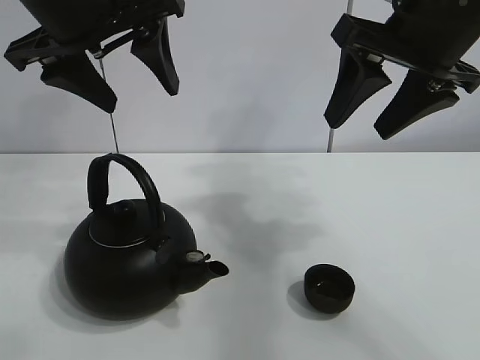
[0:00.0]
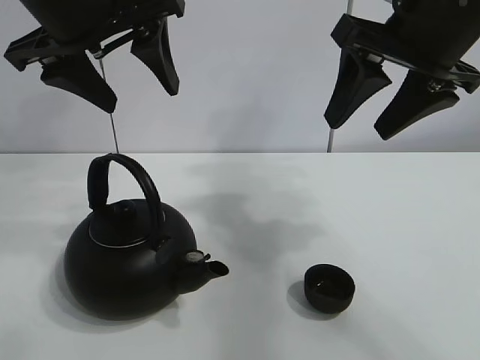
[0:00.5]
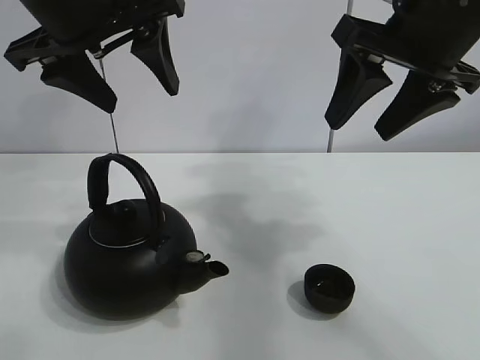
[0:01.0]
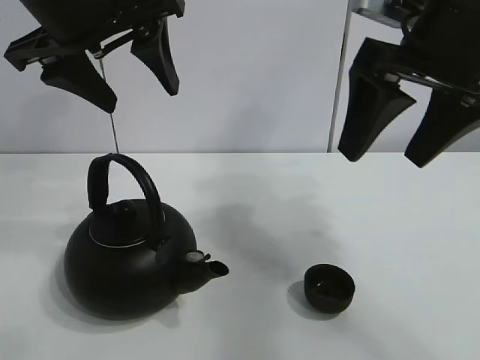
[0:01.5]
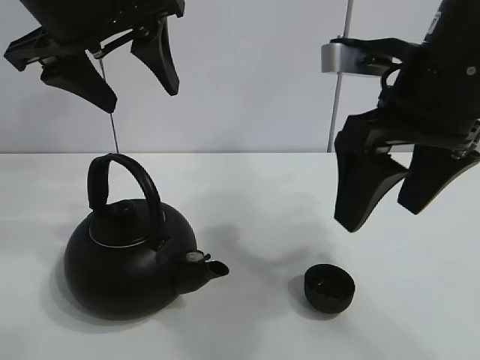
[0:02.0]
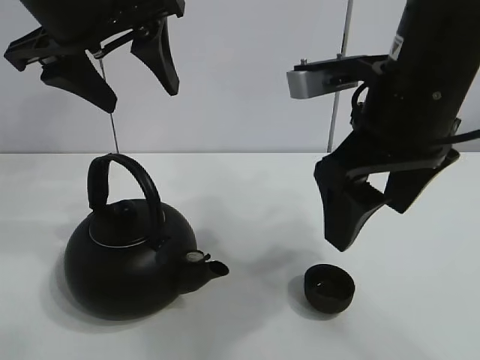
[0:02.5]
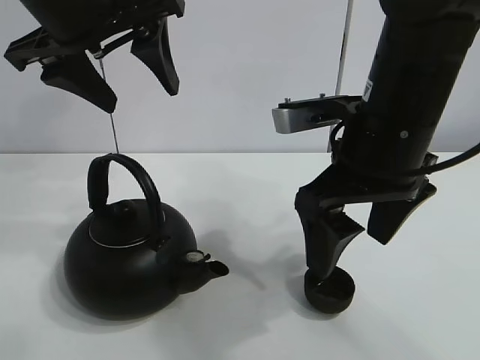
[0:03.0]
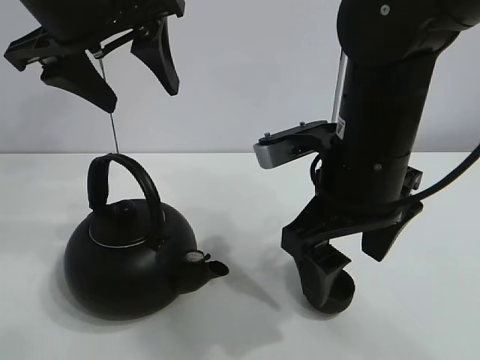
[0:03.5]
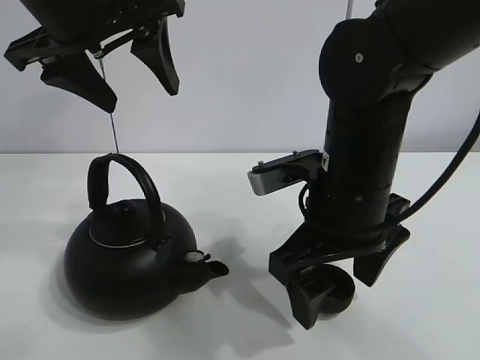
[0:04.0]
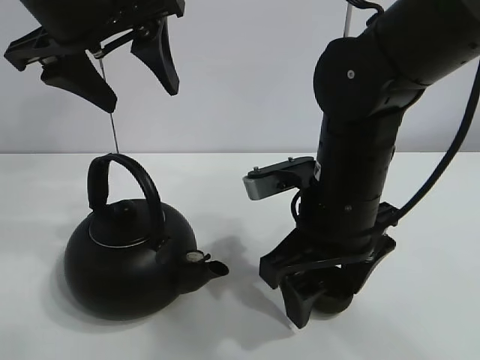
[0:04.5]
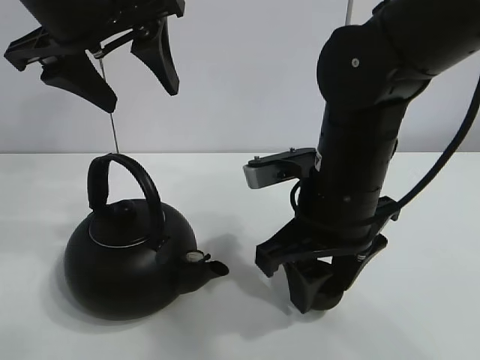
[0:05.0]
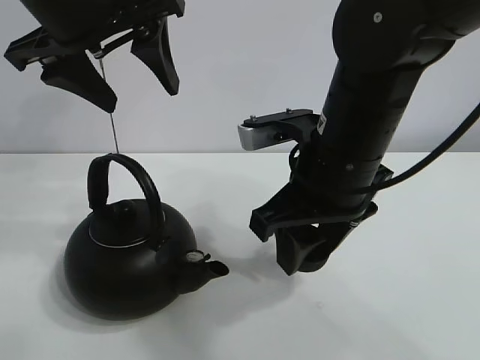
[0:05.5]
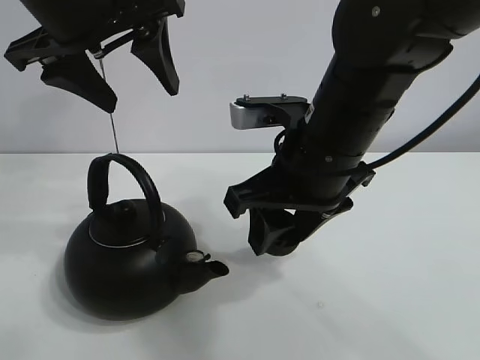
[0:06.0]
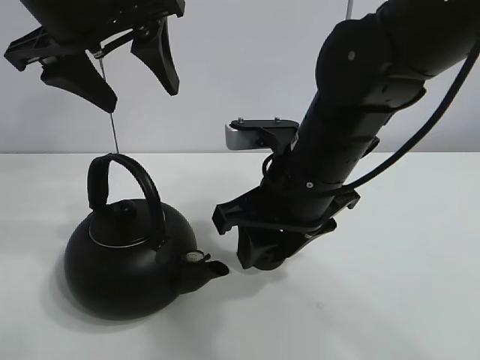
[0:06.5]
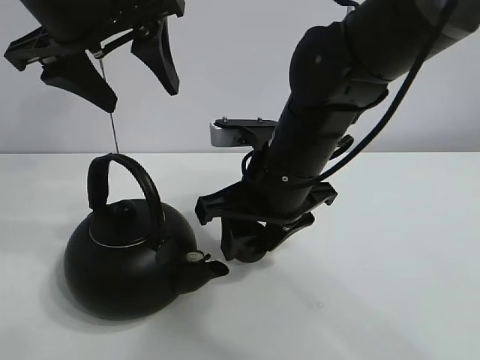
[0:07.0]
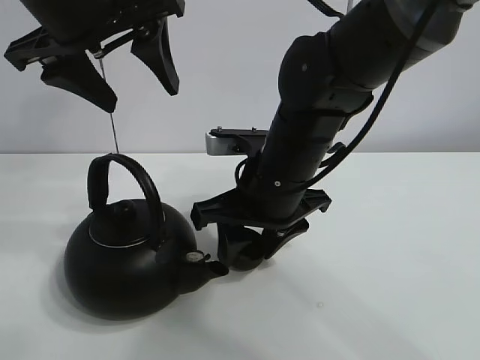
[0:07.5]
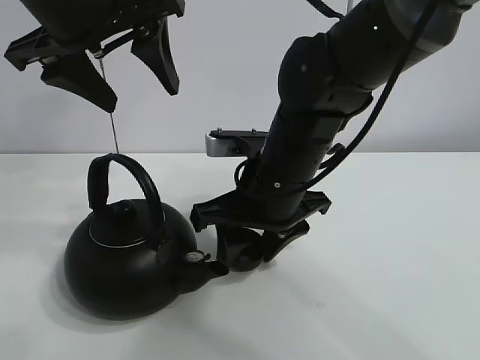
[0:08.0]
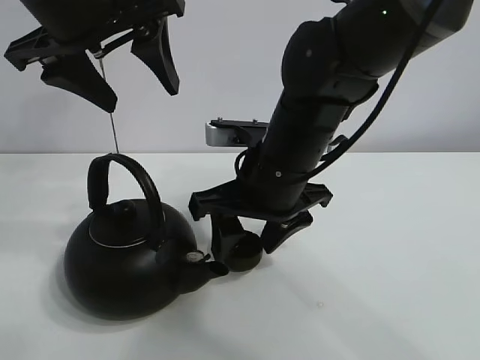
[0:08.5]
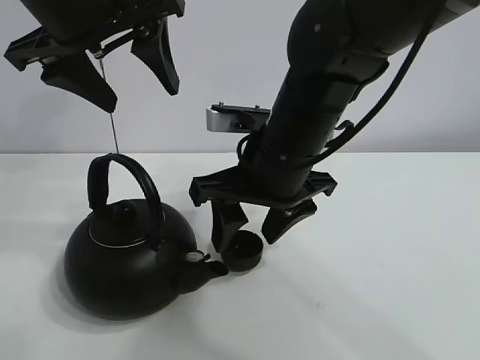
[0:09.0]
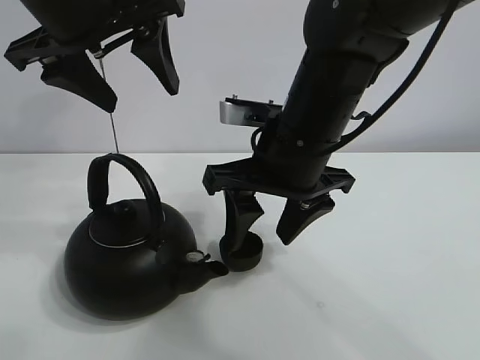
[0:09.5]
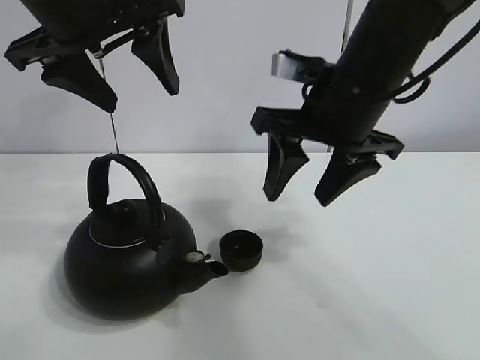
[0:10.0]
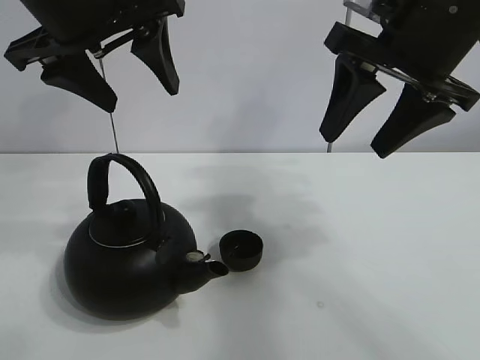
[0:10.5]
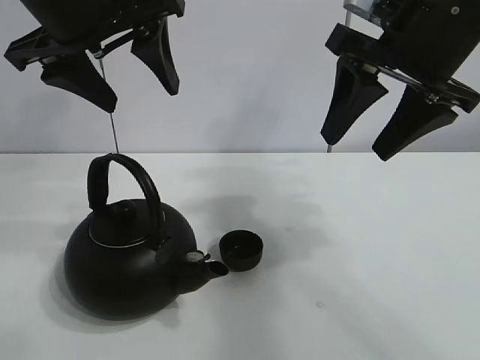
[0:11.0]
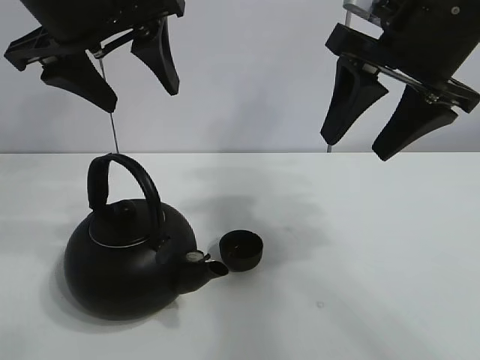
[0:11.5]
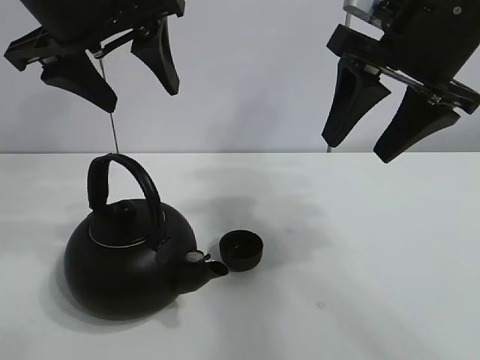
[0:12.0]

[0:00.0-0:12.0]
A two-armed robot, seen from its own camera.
Task of the whole recording: pour tea into the teacup.
Step, 0:00.0 to 0:04.5: Pick up the teacup with the right gripper.
Step, 0:05.0 to 0:08.0: Place the teacup in the center of view with the right gripper.
0:02.0 to 0:04.0: The right gripper moves downward and to the left, roughly 10 cm.
0:04.0 to 0:06.0: The right gripper closes.
0:06.0 to 0:08.0: The right gripper ends up roughly 5 cm from where it was.
0:08.0 to 0:10.0: The right gripper travels upward and to the right by about 10 cm.
0:10.0 to 0:12.0: The right gripper is displaced upward and to the right by approximately 10 cm.

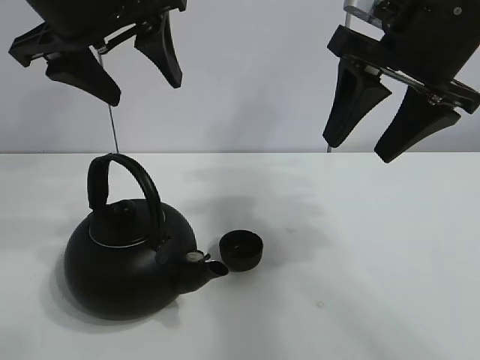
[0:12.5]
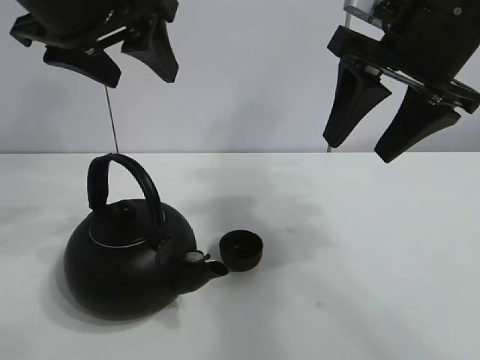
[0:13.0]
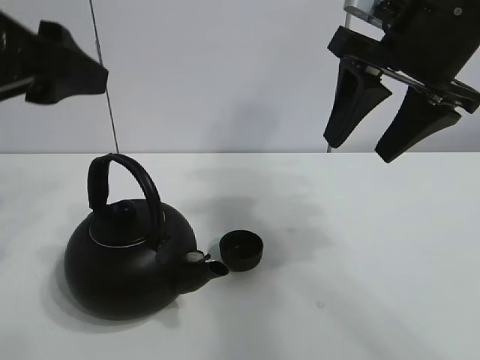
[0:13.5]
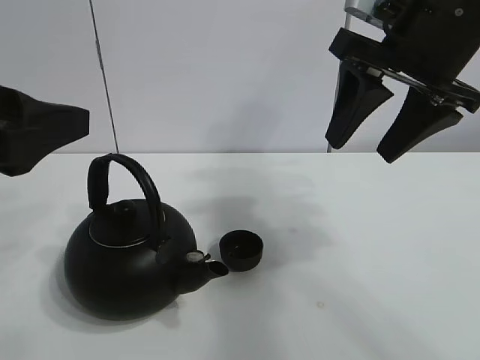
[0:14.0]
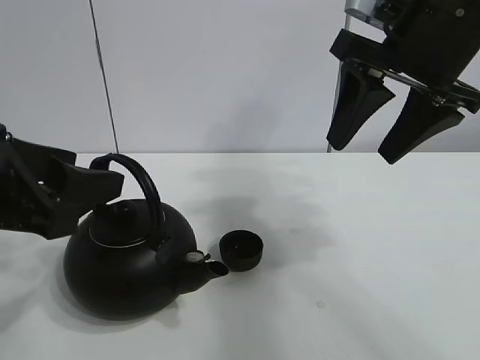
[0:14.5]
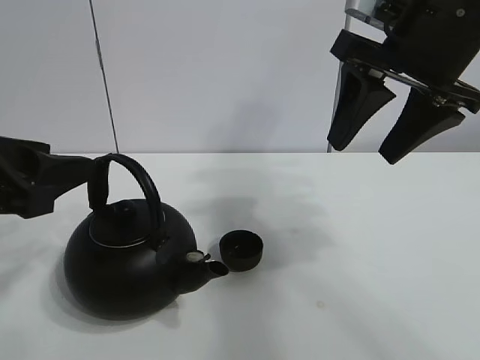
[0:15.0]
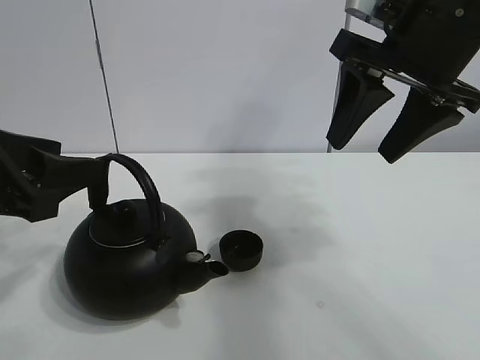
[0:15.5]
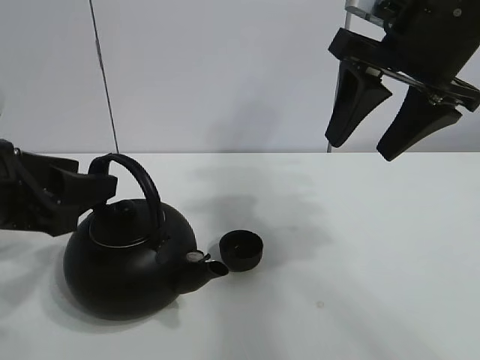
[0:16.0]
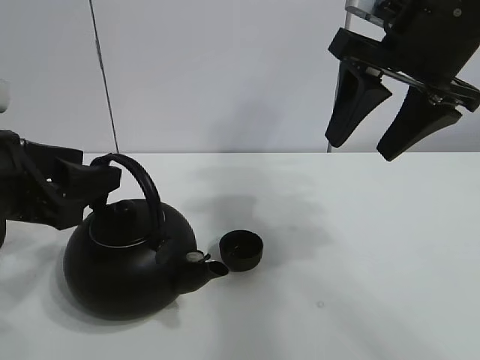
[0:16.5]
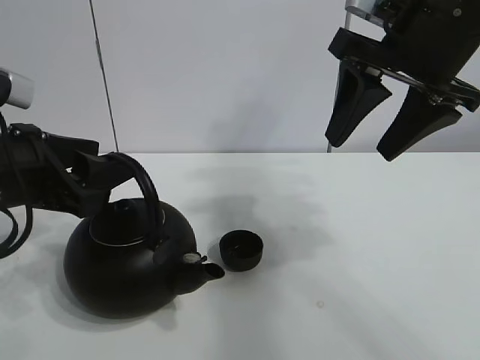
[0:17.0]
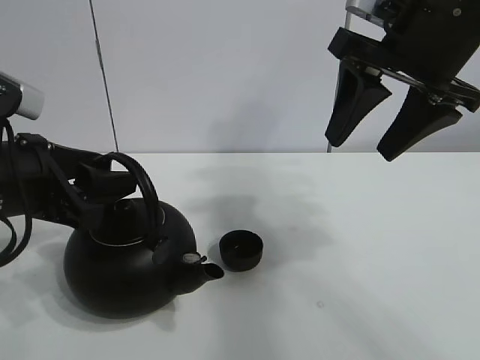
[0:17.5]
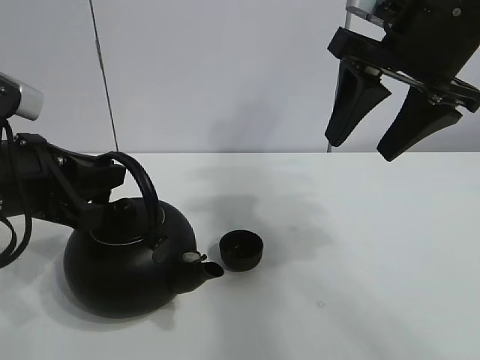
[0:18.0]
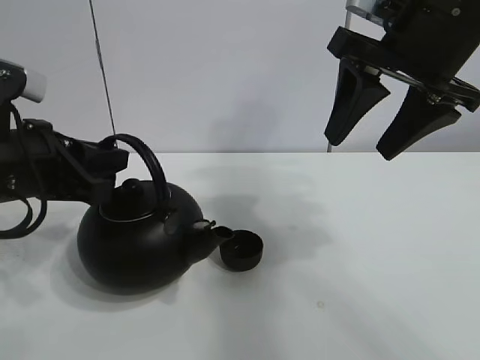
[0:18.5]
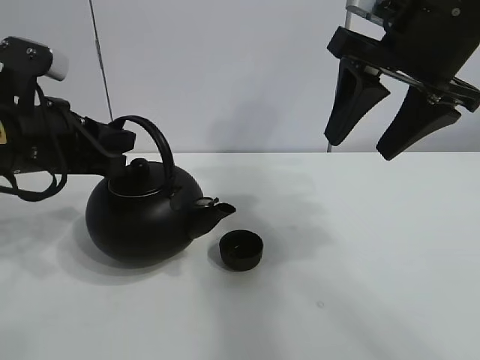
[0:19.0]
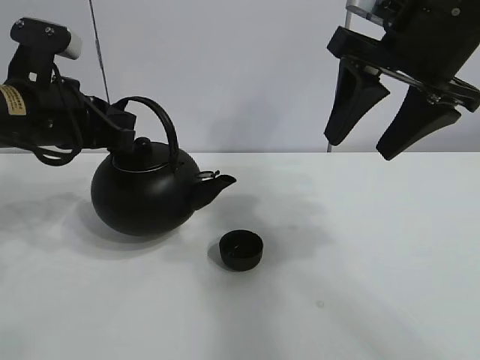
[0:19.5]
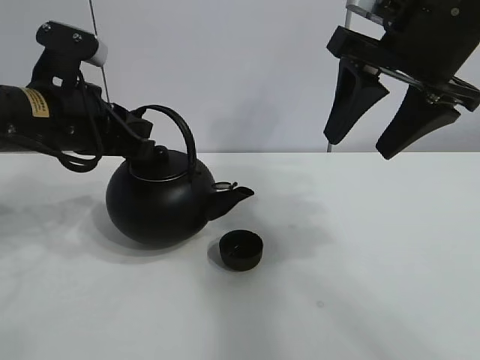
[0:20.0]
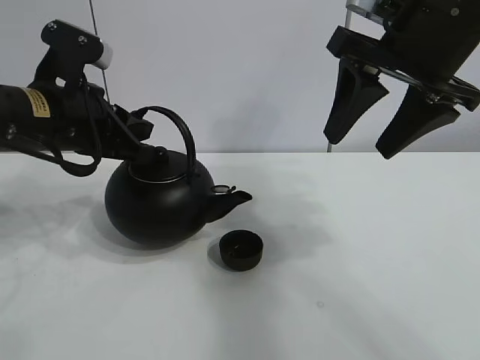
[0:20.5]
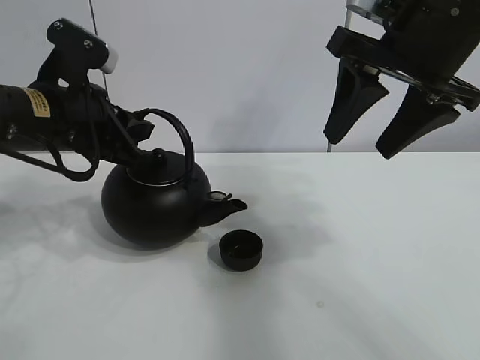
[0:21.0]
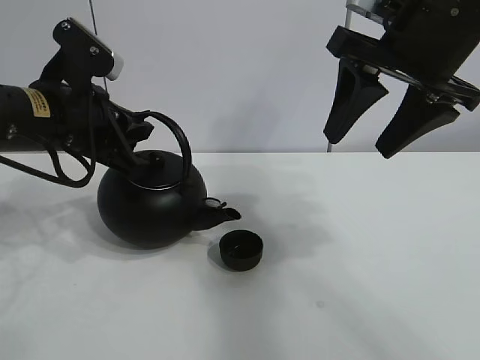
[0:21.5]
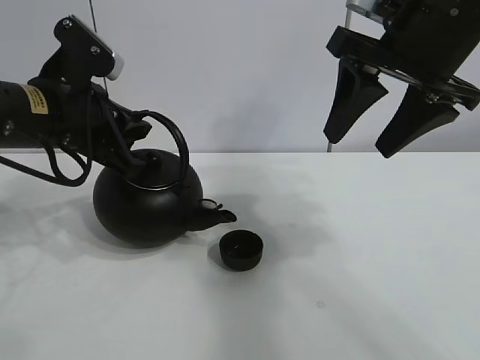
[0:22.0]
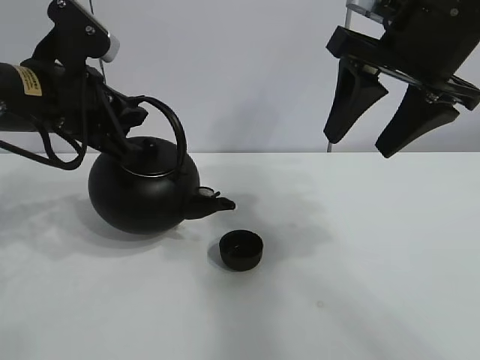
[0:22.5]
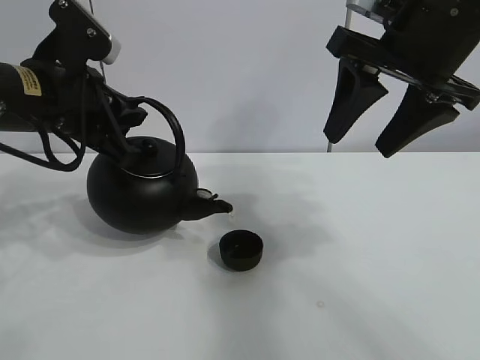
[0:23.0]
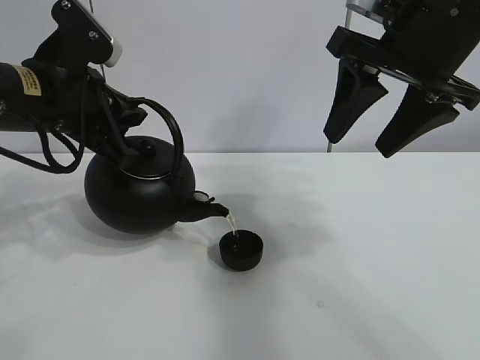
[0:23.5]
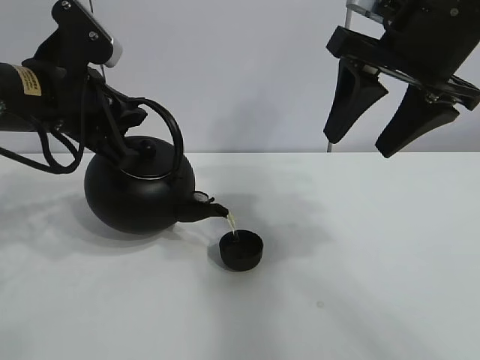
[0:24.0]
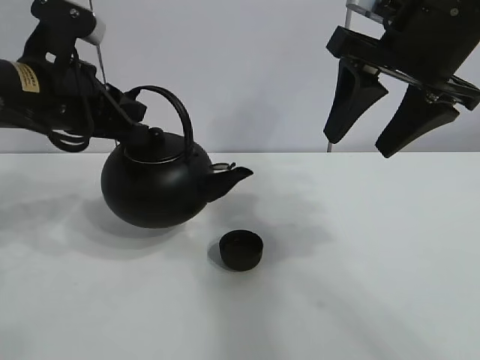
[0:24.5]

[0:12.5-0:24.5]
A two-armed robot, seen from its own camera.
Task of the whole recording: pour tea into the teacup.
Step, 0:12.5 to 0:17.5: Pick up the teapot with the left gripper.
Step, 0:18.5 to 0:24.0: Pour tea into the teacup with the left gripper.
0:12.5 to 0:14.5: The left gripper moves backward, downward and to the left, some 20 cm.
0:14.5 to 0:16.5: The left gripper shifts by about 5 cm.
0:16.5 to 0:18.5: The left gripper closes its fingers.
0:18.5 to 0:20.5: The left gripper goes about 5 cm forward.
0:20.5 to 0:24.5: The grippers make only small movements.

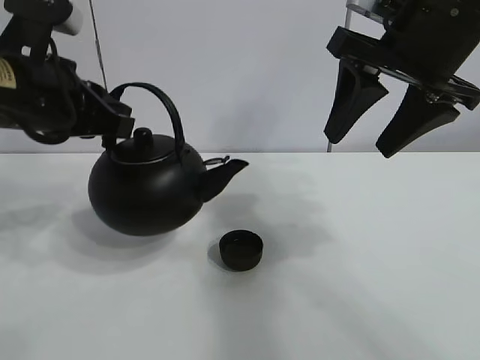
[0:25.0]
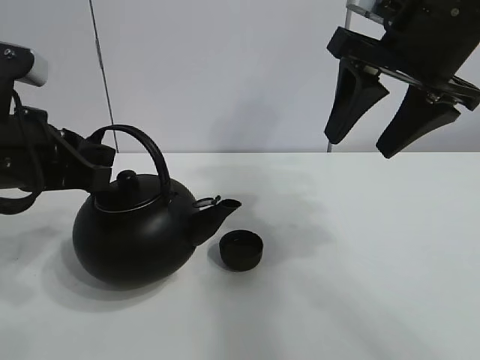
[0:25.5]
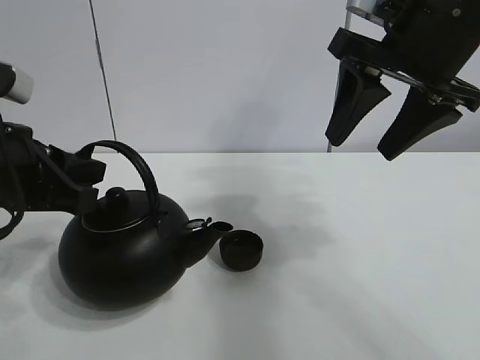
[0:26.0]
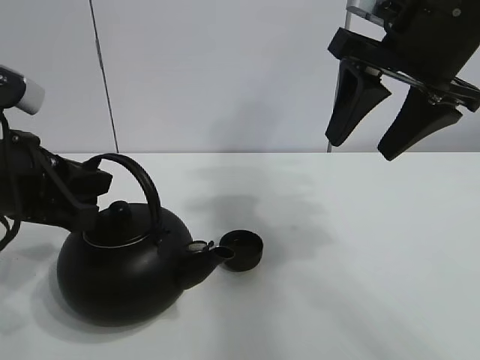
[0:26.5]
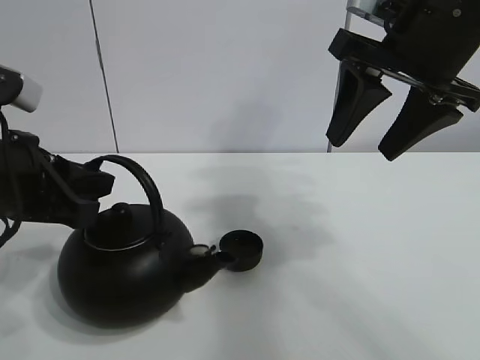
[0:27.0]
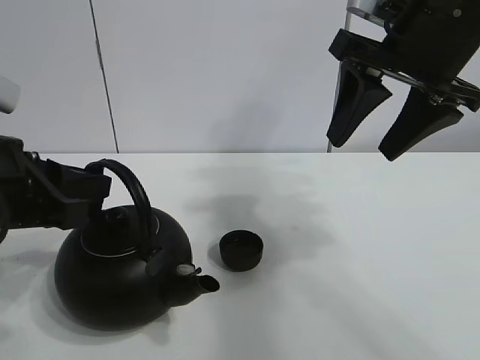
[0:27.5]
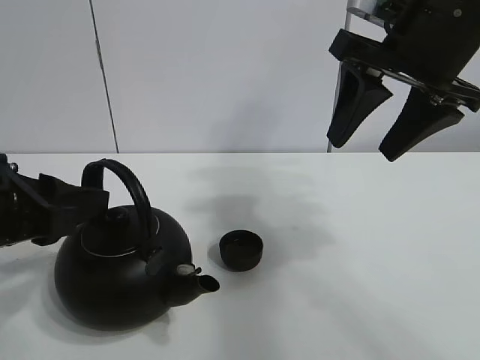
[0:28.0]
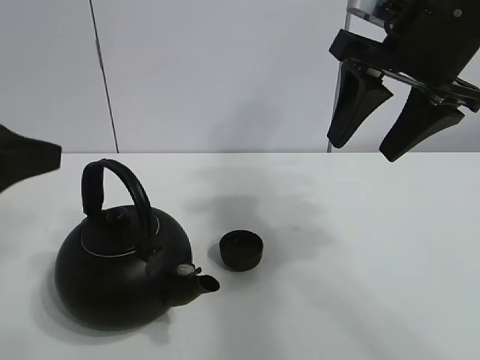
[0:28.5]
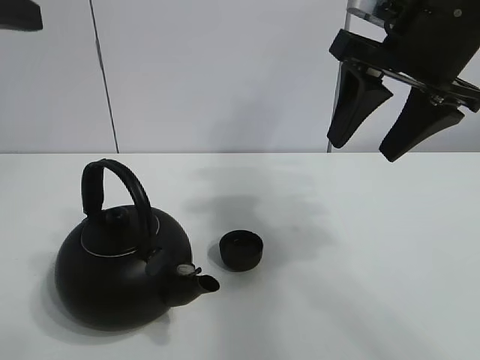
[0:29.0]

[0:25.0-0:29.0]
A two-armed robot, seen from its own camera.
Task of the whole recording: pour tea into the teacup.
0:25.0 to 0:27.0: The left gripper moves backward and downward, roughly 10 cm.
0:27.0 to 0:29.0: The left gripper heads upward, covering roughly 15 cm, and opens.
